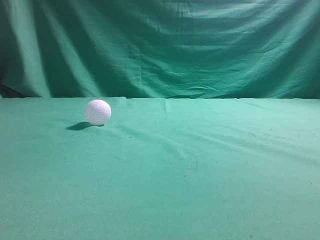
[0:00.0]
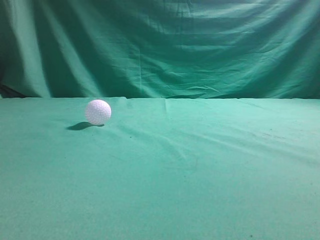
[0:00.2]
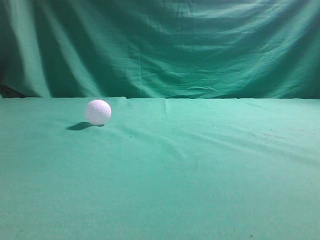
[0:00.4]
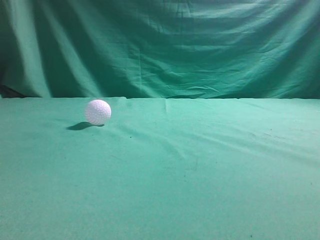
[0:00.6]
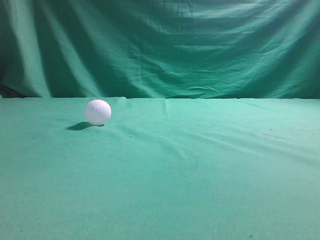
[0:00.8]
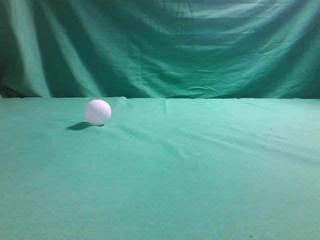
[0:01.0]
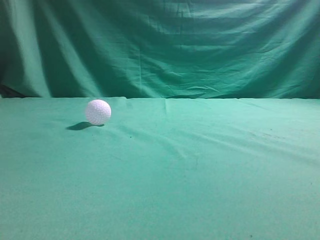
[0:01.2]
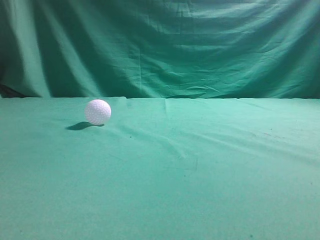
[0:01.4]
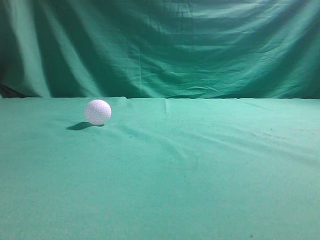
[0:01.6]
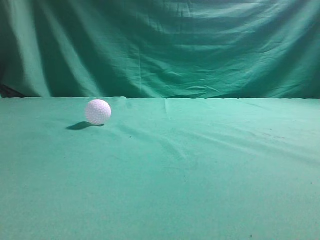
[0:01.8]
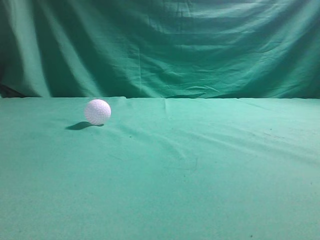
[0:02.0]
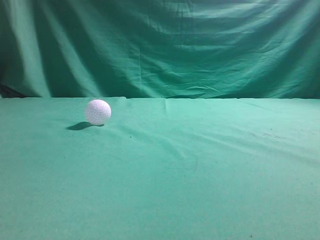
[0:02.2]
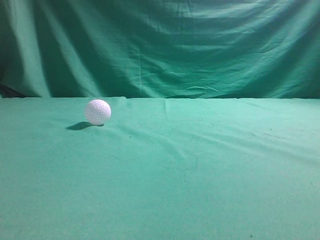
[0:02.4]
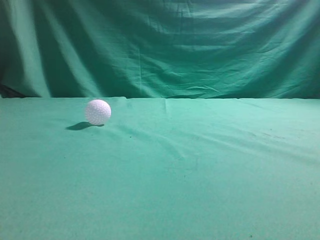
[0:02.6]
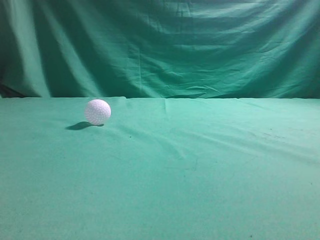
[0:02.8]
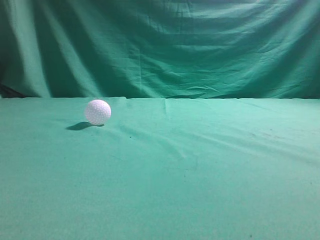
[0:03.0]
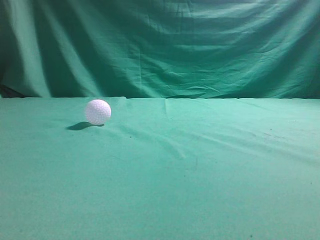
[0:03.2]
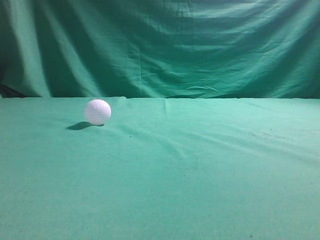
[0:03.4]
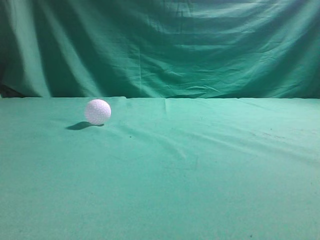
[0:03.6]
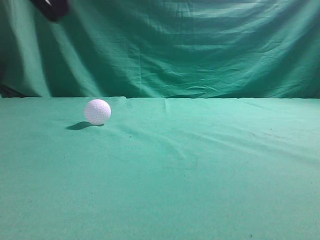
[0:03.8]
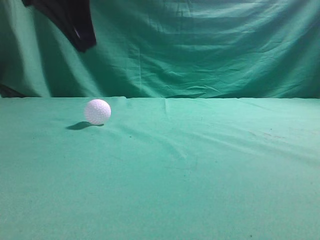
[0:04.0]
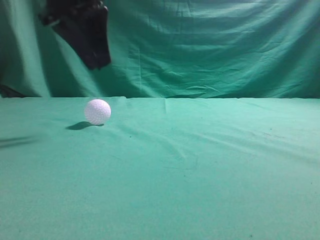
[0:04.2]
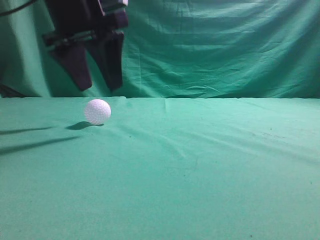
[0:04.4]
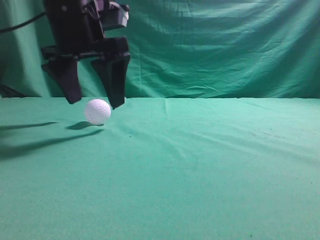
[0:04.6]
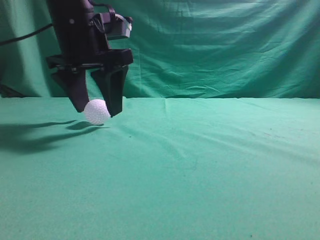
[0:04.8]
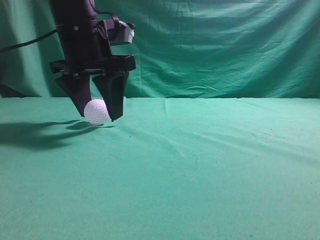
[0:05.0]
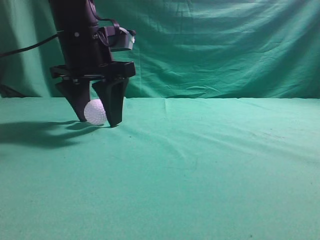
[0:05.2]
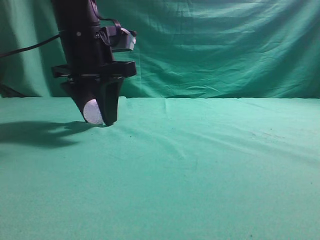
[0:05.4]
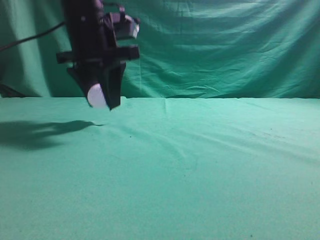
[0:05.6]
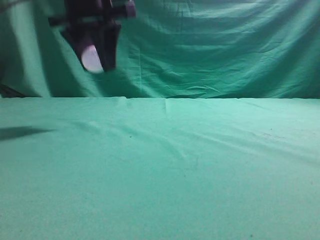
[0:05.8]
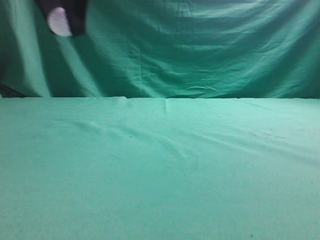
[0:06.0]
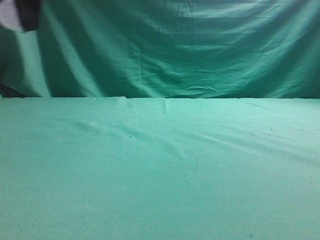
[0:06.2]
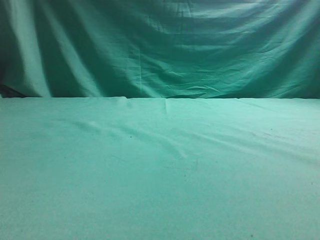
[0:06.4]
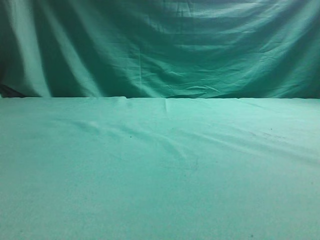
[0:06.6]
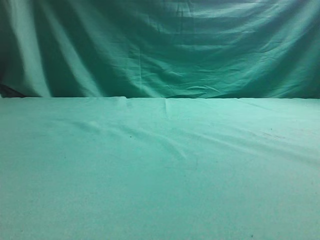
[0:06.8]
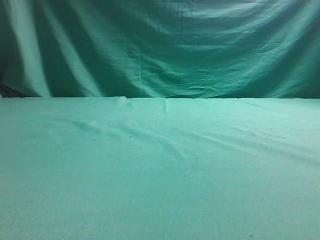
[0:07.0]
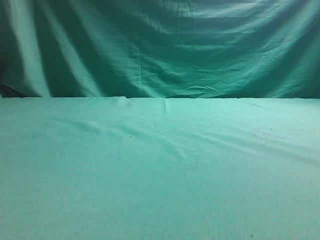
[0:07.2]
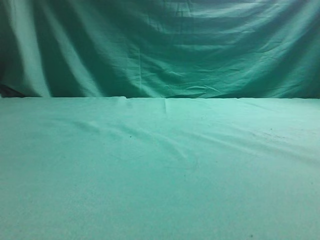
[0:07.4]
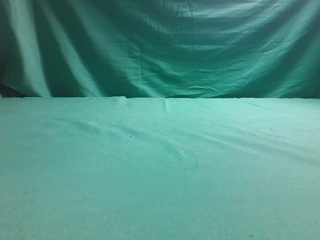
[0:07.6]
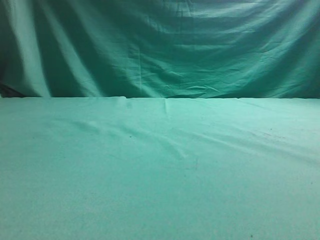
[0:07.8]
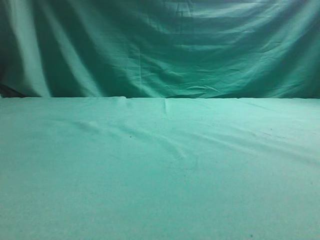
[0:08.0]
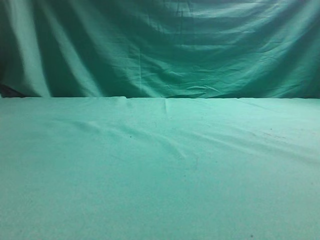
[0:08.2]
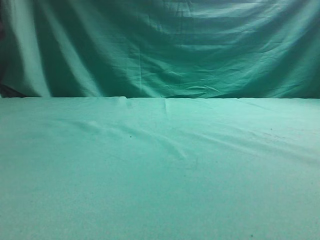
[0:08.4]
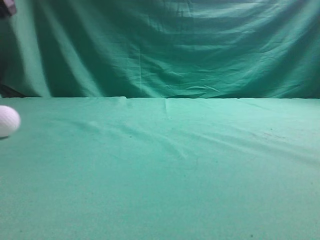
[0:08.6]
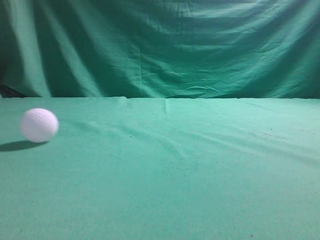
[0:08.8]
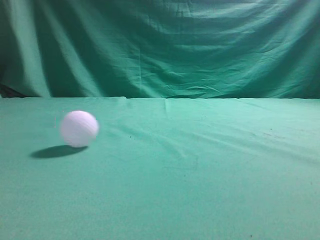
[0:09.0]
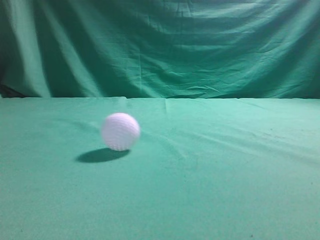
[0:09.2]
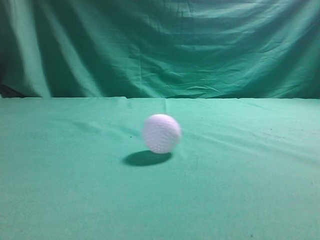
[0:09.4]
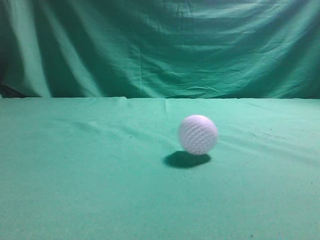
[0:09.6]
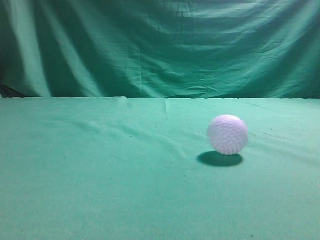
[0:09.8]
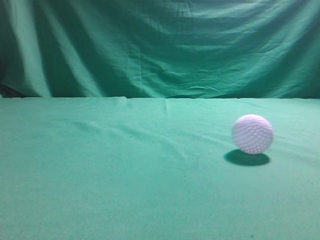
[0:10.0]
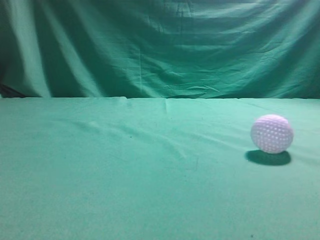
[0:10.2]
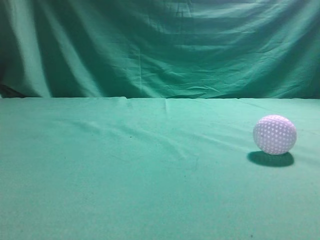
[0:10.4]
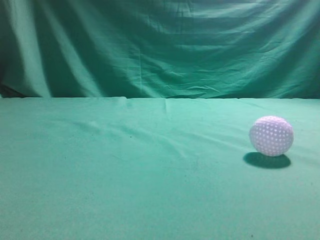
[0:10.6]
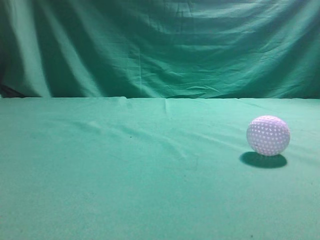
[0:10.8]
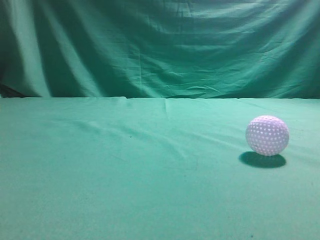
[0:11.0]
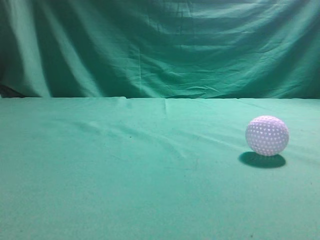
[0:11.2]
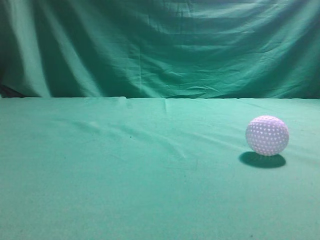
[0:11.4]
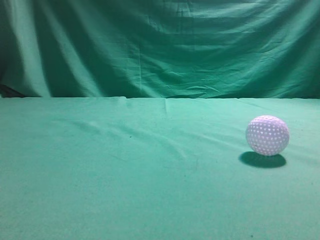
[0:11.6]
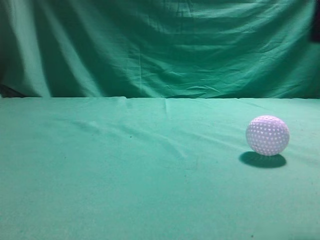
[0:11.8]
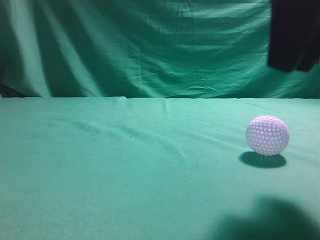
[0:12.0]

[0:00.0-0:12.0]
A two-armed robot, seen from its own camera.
Task of the whole recording: pick up the ball and place it on the plate, then pick up the ball from the plate and put it in the center of the table.
Step, 0:00.0 to 0:05.4: Grab the spherical object with your left arm.
Step, 0:05.8 to 0:07.8: Place the sphere on the white object.
0:03.0 to 0:04.4: The left gripper moves forward and to the right, roughly 30 cm, and opens up.
0:04.4 to 0:06.0: The left gripper goes about 10 cm upward.
0:06.0 to 0:07.6: The left gripper travels to the left and downward by some 25 cm.
0:07.6 to 0:09.0: The left gripper shifts approximately 25 cm upward and to the right, and closes its fingers.
0:09.0 to 0:10.4: The right gripper heads upward, covering about 10 cm. Meanwhile the left gripper goes approximately 25 cm backward and downward.
0:10.4 to 0:12.0: The right gripper heads to the left and forward, covering roughly 20 cm.

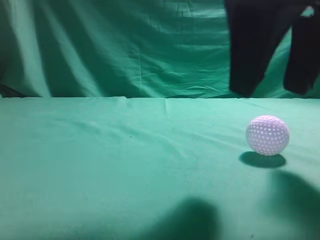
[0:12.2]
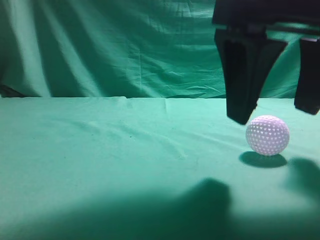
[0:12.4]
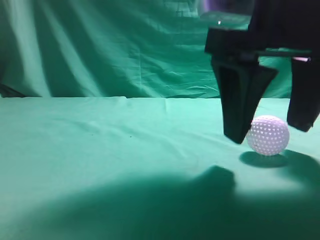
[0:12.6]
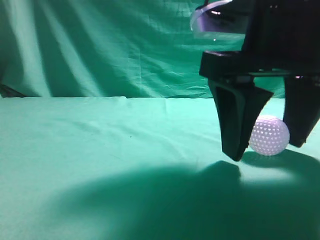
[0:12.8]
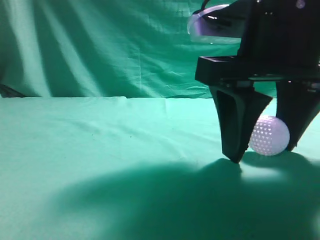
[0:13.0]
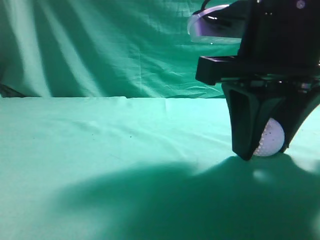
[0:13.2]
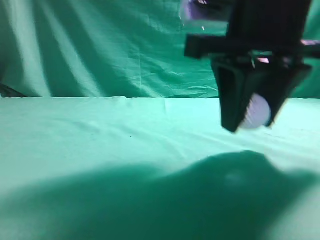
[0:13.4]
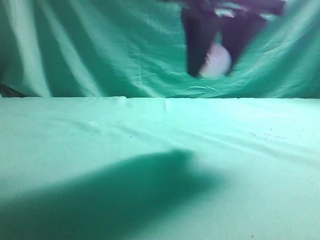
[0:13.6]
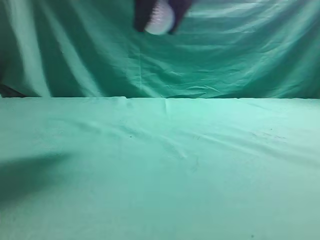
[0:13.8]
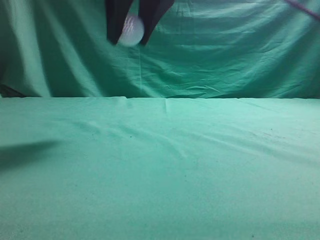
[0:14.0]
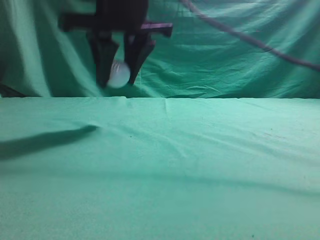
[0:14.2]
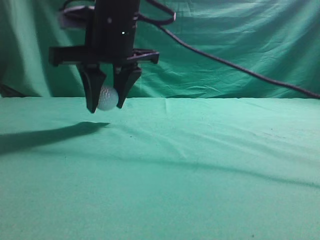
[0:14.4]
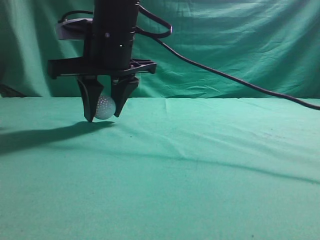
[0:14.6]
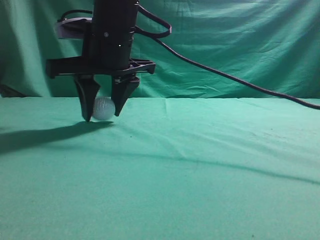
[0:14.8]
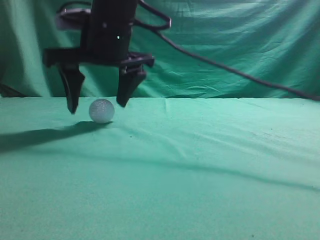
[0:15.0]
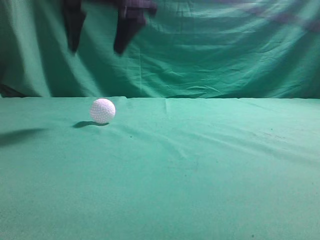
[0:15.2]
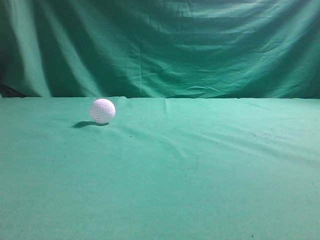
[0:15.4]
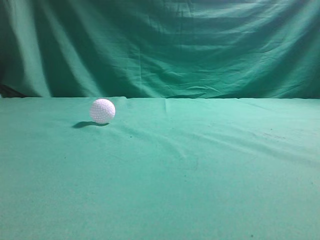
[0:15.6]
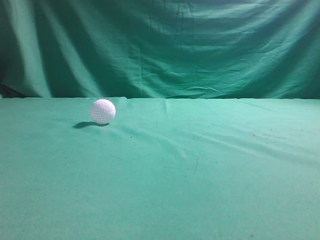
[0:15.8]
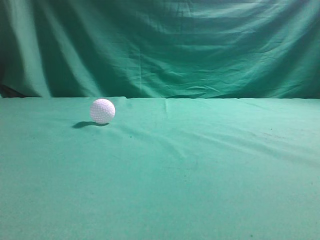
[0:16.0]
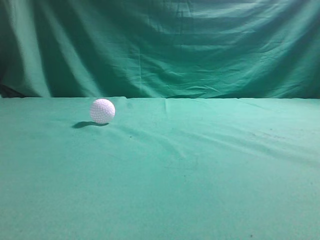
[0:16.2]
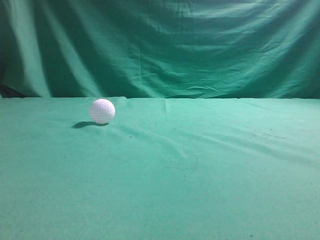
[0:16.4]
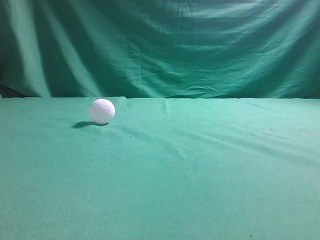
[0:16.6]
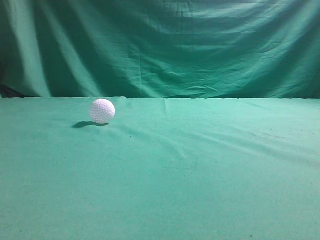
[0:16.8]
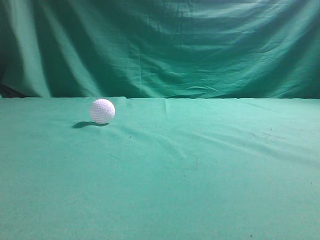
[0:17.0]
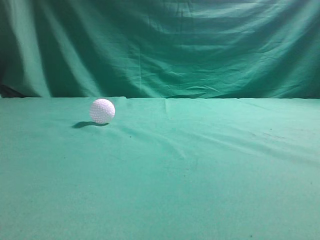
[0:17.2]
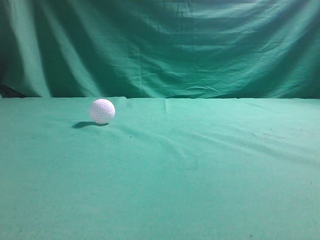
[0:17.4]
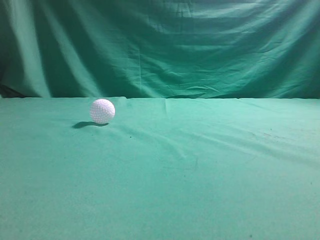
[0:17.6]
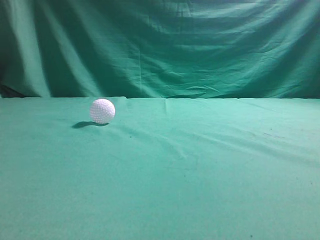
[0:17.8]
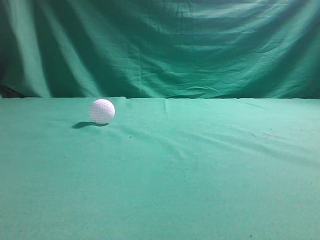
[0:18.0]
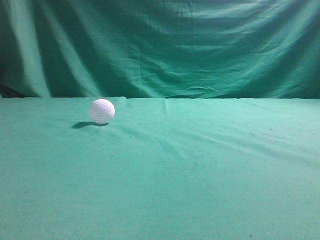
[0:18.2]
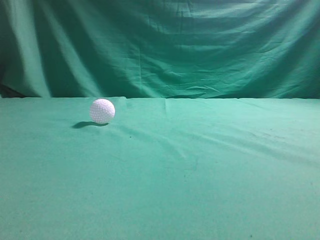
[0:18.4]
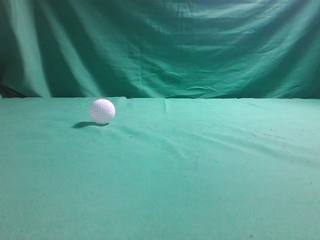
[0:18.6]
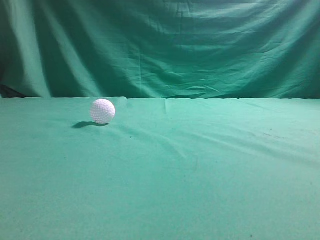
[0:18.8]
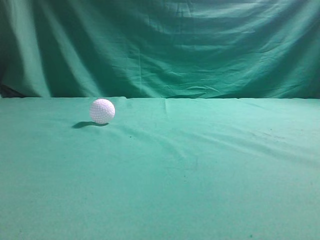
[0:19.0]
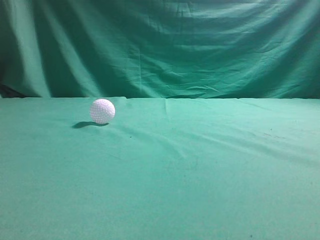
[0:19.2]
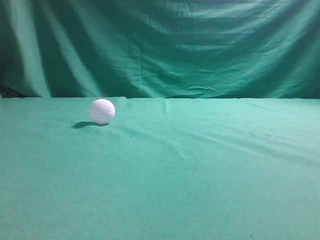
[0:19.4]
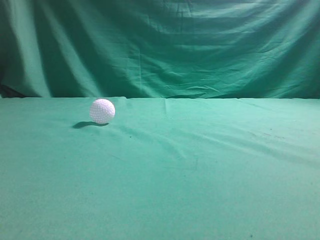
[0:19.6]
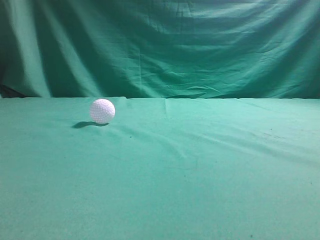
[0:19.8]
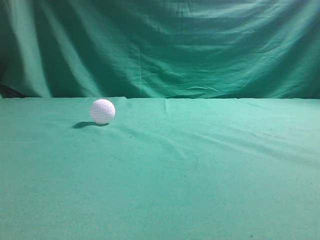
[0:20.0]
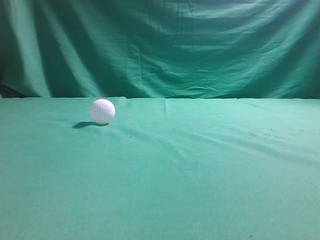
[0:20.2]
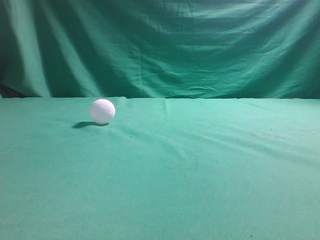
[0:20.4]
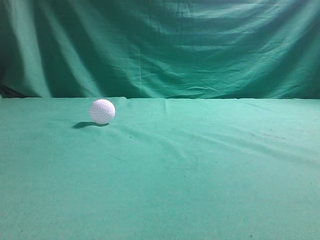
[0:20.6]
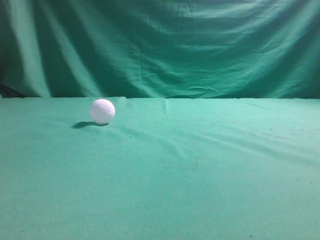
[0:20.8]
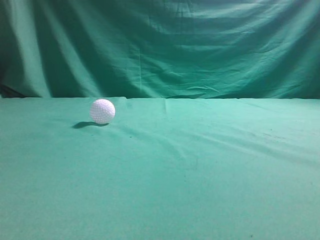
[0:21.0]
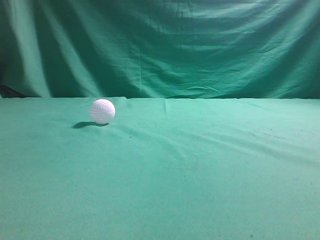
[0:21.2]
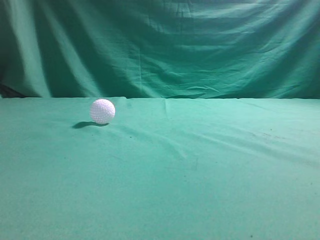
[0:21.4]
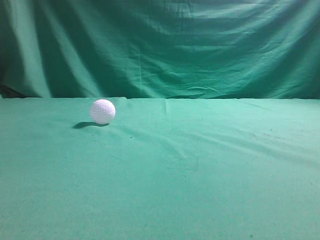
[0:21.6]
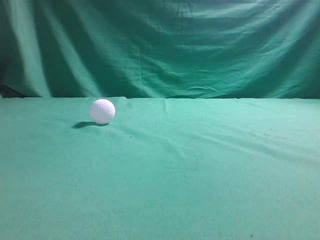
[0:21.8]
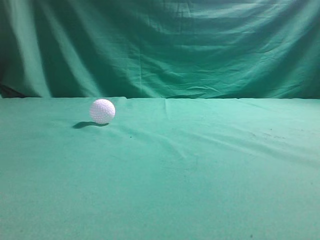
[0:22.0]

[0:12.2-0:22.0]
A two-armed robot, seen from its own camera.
Task of the whole recording: pick up the ball and place it on the plate, then pick up the ball from the plate and put it in the center of the table.
Step, 0:13.6 to 0:15.0: Put the picked-up object on the table.
0:12.2 to 0:13.6: The right gripper shifts about 5 cm forward.
0:13.6 to 0:15.0: The right gripper is displaced to the left and forward by roughly 20 cm, and opens.
0:15.0 to 0:16.4: The right gripper heads upward, to the right and backward, covering about 40 cm, and closes up.
